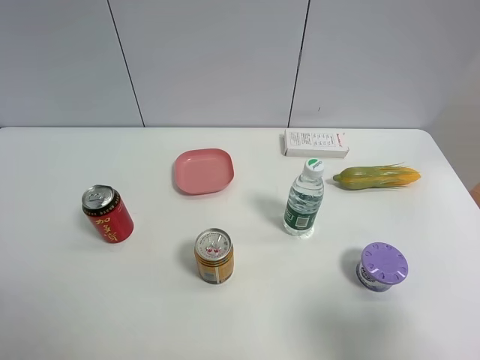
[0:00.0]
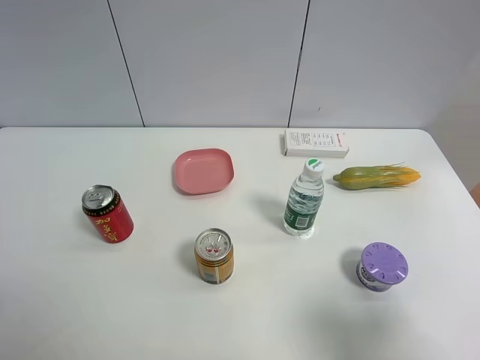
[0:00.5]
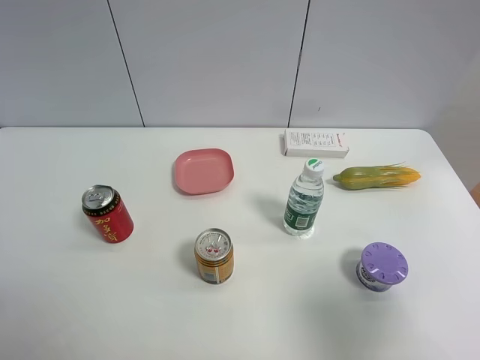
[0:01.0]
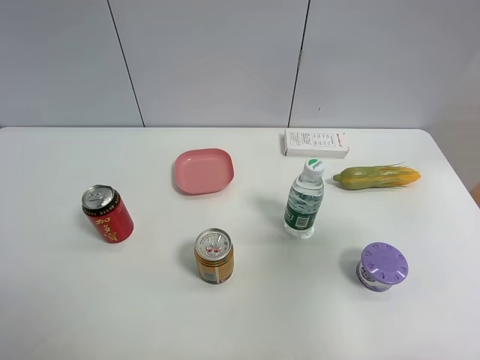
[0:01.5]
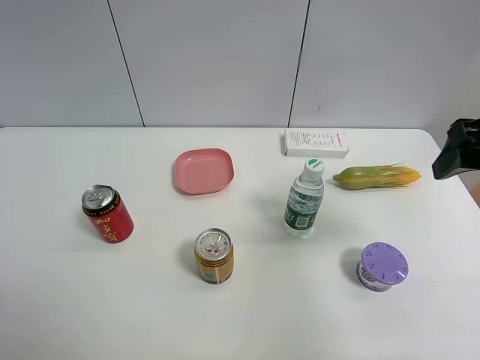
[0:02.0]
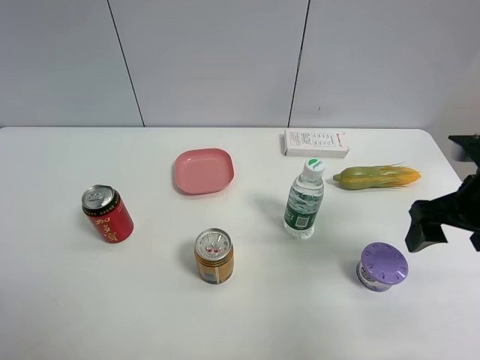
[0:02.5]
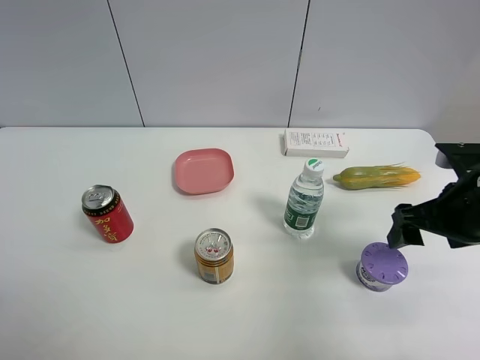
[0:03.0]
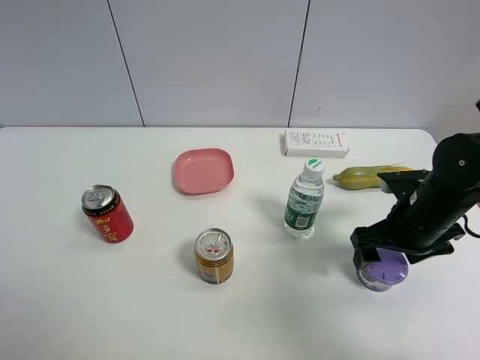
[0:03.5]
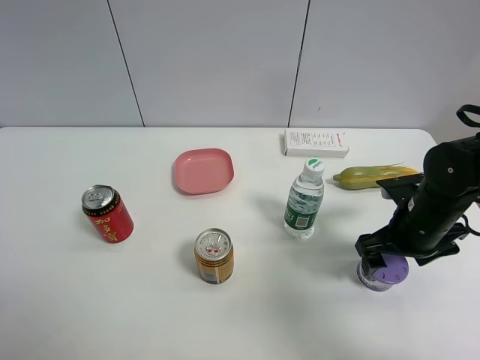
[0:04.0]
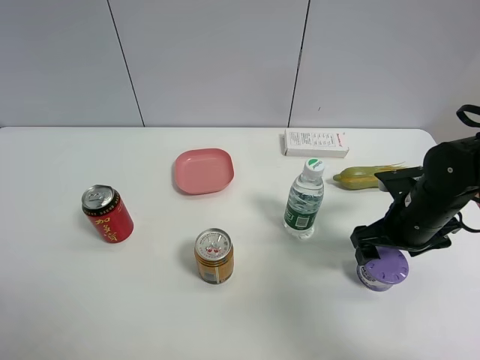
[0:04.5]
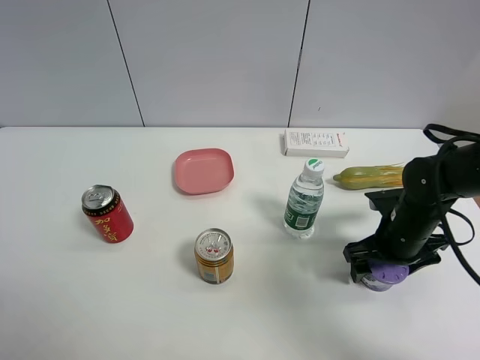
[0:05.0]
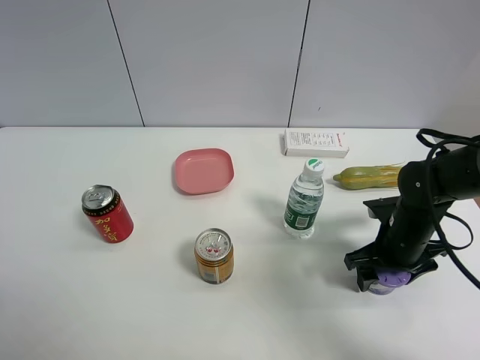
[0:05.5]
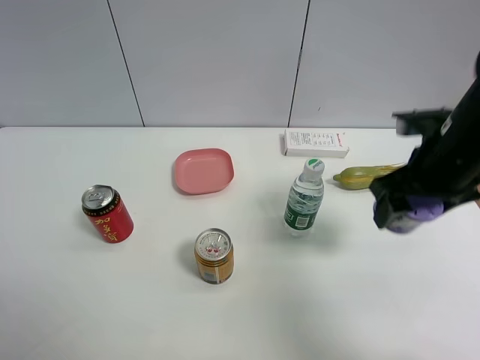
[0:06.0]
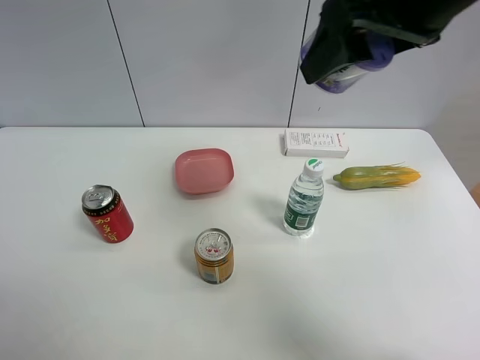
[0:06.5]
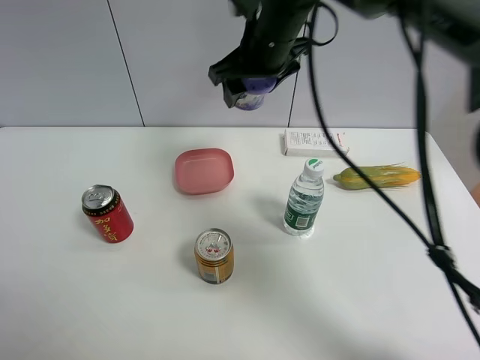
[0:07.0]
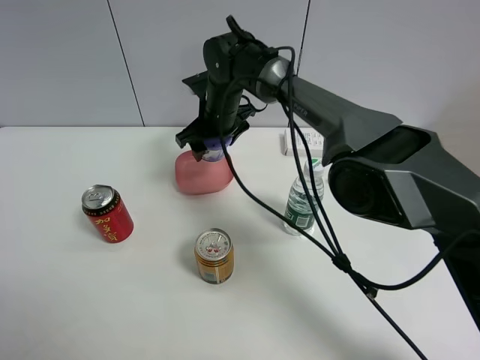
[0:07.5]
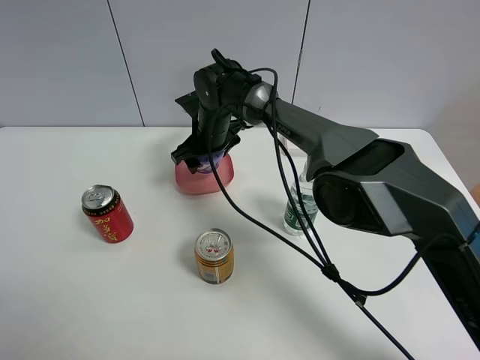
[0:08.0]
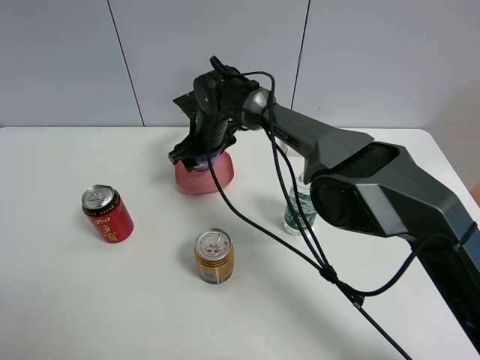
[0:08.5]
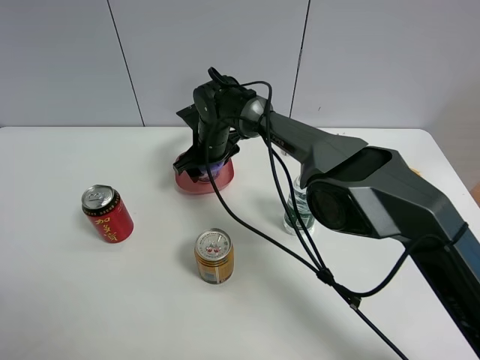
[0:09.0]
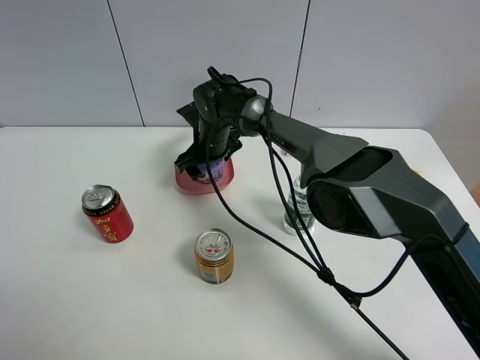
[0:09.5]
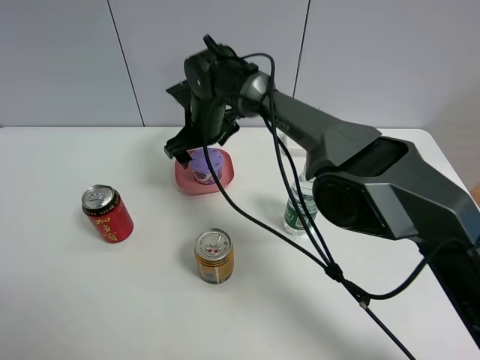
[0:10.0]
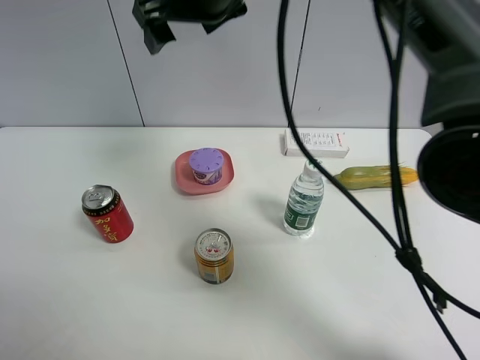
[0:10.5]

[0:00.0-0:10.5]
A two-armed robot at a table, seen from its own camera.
Task of the whole recording: the gripper move the object.
Step, 0:00.0 to 0:05.0: Grasp the Incense box with the right gripper.
Step, 0:05.5 to 0:09.5: Place the Incense box into the pink plate with the right gripper.
0:00.0 to 0:02.0: The right gripper moves forward, roughly 20 cm.
0:02.0 to 0:04.0: The right gripper travels downward by about 20 cm.
0:04.0 to 0:06.5: The right gripper moves upward and to the left, some 30 cm, and closes its fingers.
0:06.5 to 0:08.5: The right gripper heads downward, forward and to the left, covering roughly 40 cm.
0:08.5 to 0:10.5: The right gripper shifts roughly 25 cm upward, and opens its fingers.

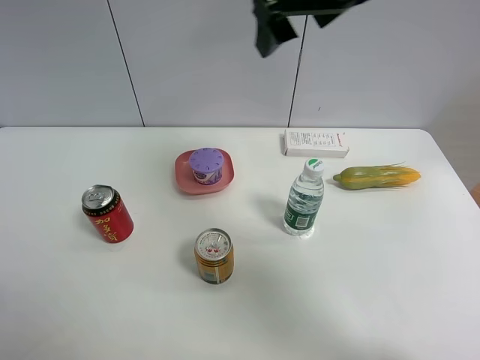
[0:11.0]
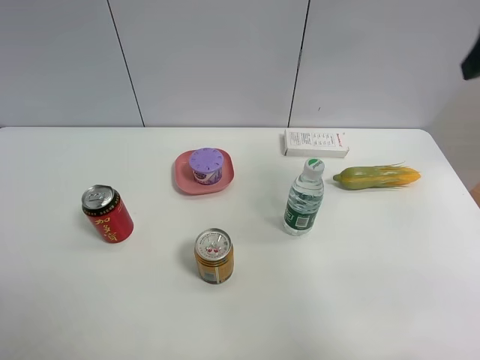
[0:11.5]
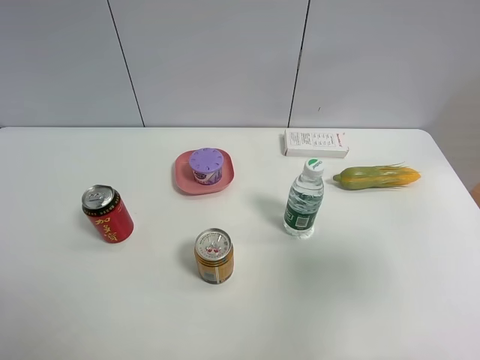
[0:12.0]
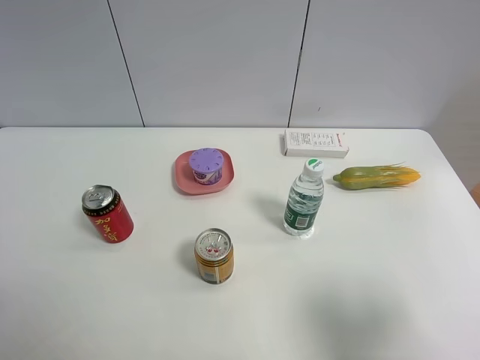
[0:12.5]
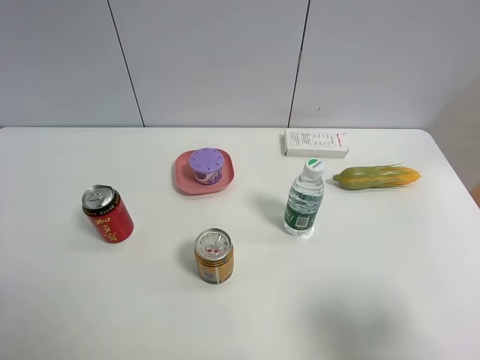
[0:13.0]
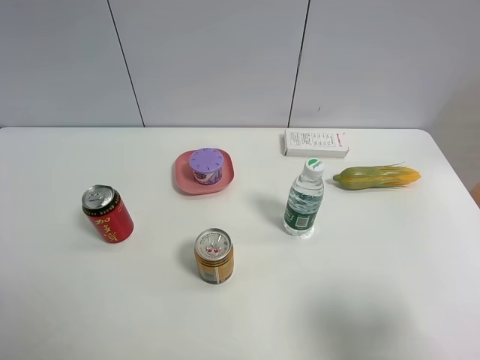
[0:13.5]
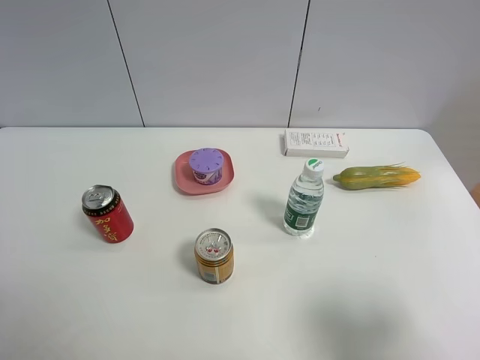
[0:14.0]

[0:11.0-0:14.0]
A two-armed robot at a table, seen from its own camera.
Task of the whole recording: the gripper move the object.
0:11.0 to 0:12.5: The right gripper shifts roughly 40 cm backward, to the right and downward.
0:12.5 to 0:14.0: Both grippers stay put.

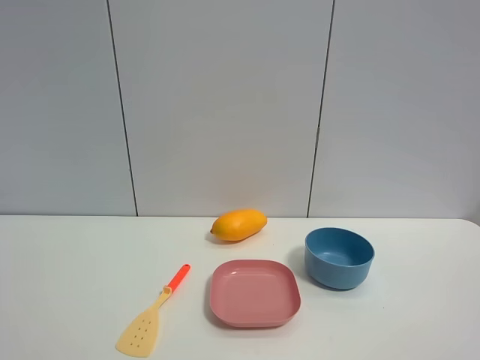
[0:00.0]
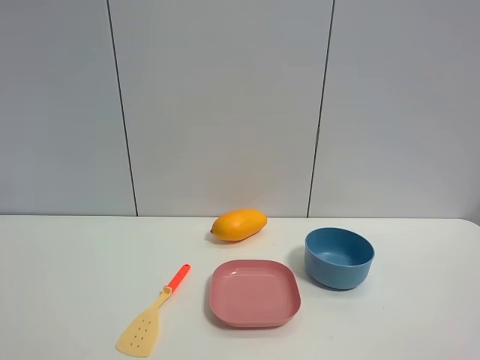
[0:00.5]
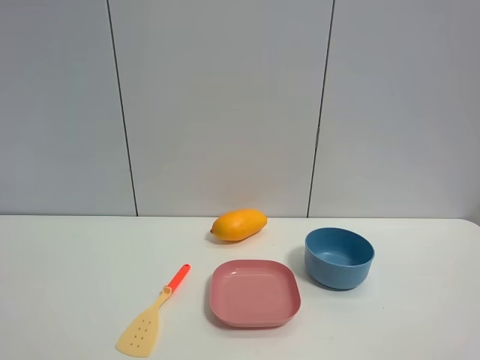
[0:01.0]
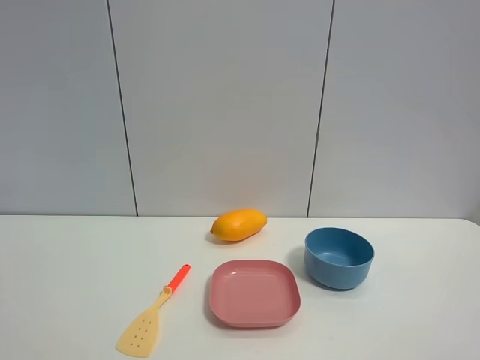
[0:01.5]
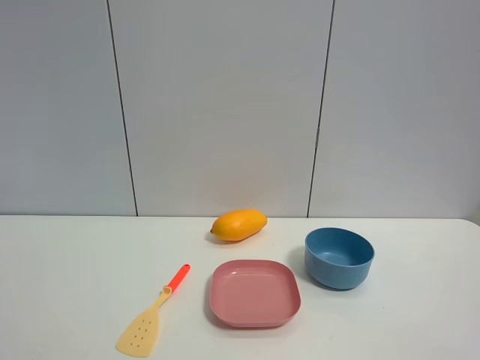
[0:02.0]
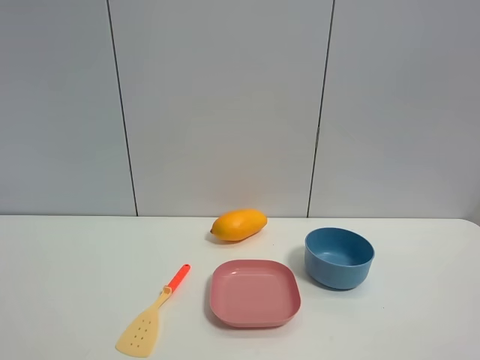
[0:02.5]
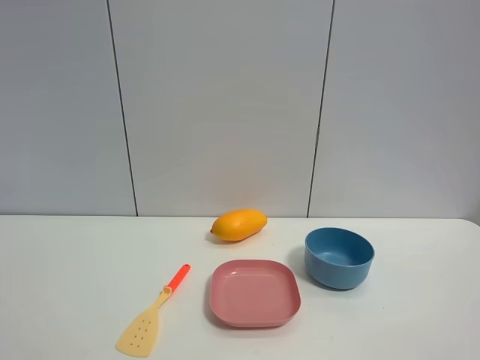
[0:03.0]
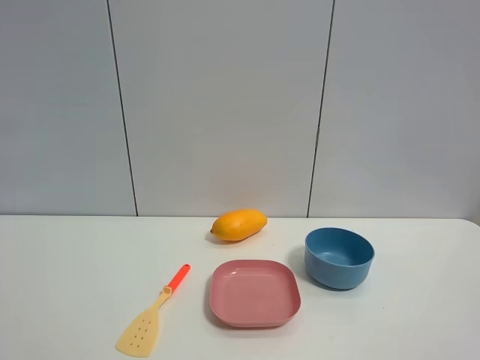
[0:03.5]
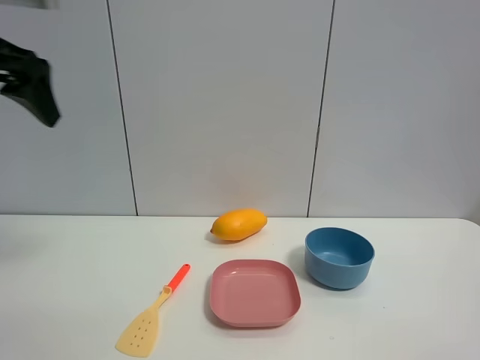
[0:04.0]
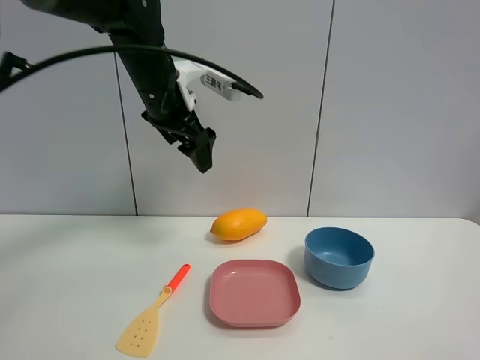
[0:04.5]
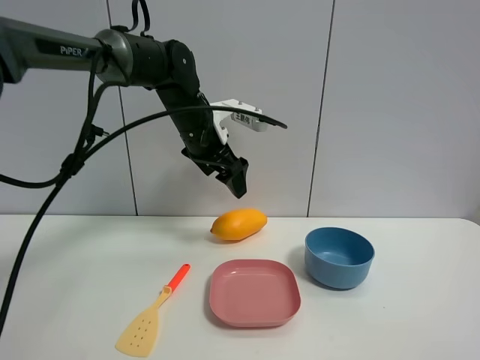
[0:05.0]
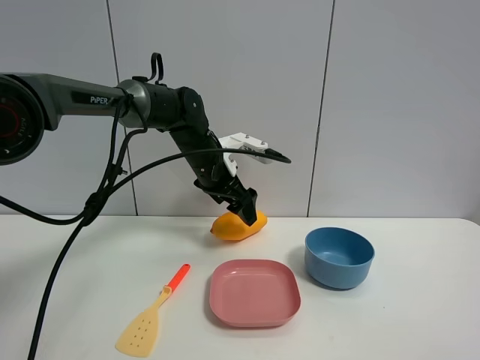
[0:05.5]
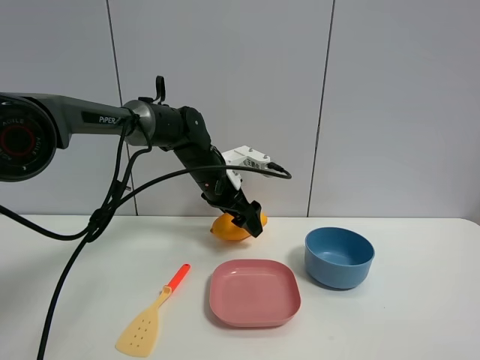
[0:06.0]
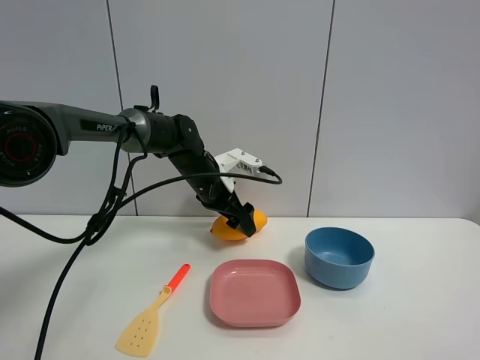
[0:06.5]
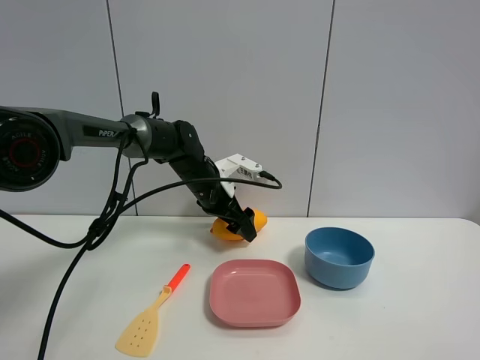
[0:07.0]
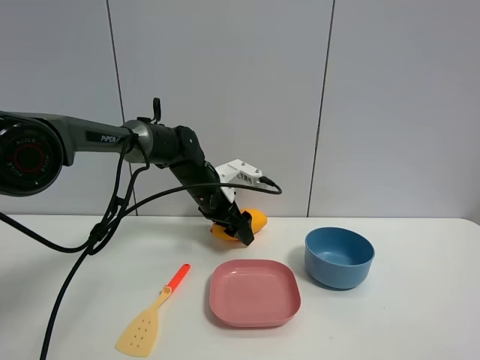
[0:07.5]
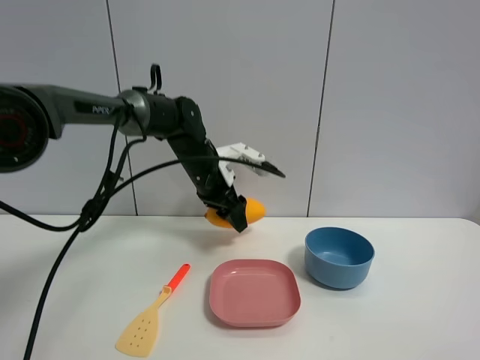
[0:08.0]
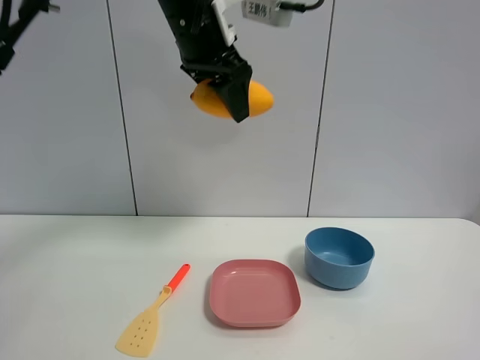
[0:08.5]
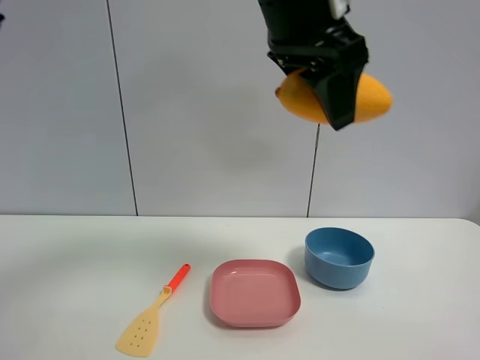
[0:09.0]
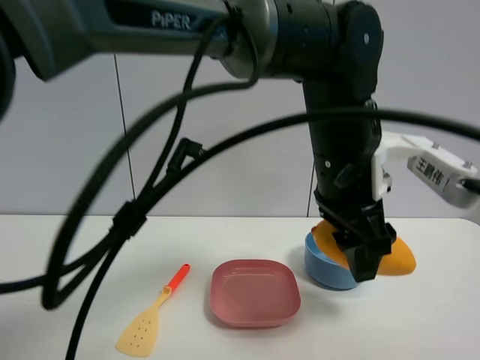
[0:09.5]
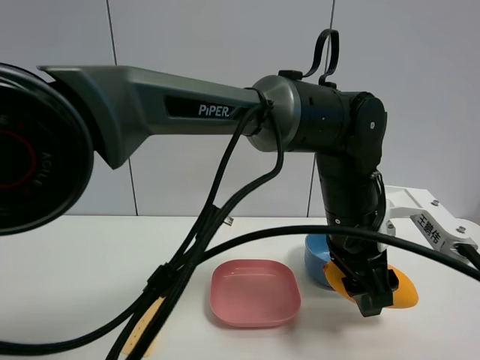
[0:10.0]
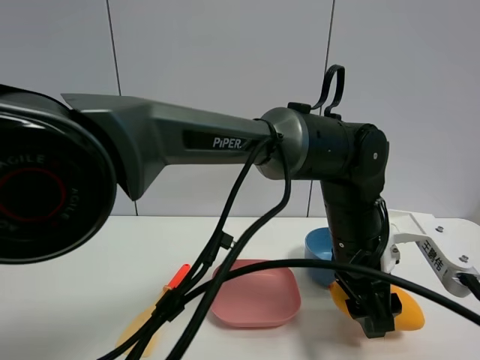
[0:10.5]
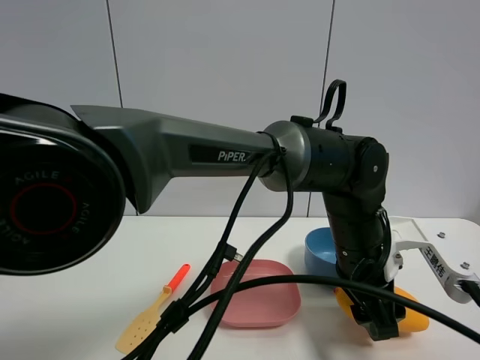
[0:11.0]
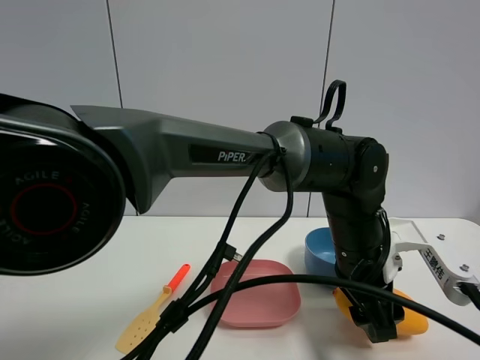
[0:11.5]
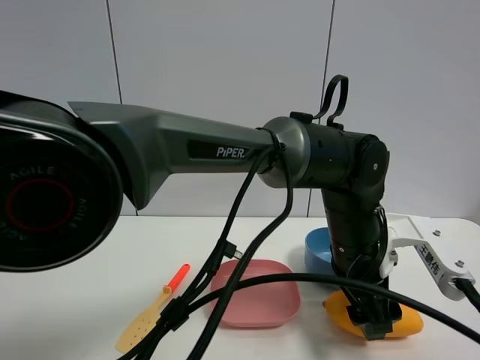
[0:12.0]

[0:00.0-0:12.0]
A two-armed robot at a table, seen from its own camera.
Task of the whole recording: the gripper move the object.
Step, 0:00.0 to 0:07.5: Grasp the mango with the left gripper.
Step, 0:08.0 to 0:12.0: Place the mango on the table with the left gripper.
0:00.0 to 0:02.0: The two grippers keep their place.
0:02.0 to 0:04.0: The left gripper goes some 30 cm forward.
0:04.0 to 0:06.0: The left gripper moves downward, to the right and forward, approximately 35 cm.
0:06.0 to 0:08.0: The left gripper closes.
0:08.0 to 0:10.0: The left gripper moves to the right and backward, roughly 25 cm, and reaches some 20 cm upward, then returns.
0:10.0 to 0:12.0: The left gripper opens up.
